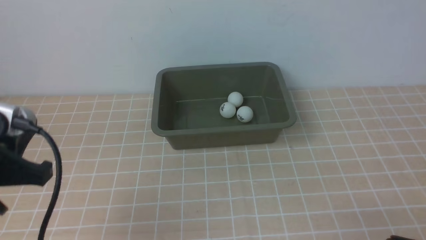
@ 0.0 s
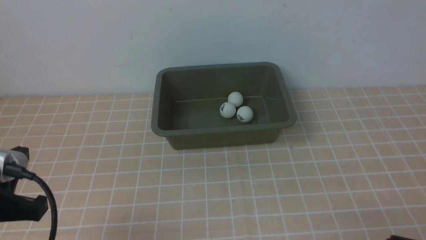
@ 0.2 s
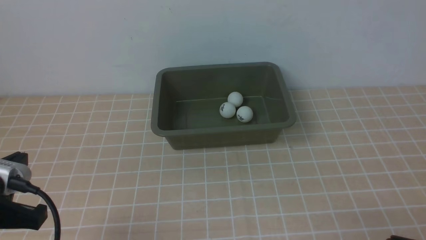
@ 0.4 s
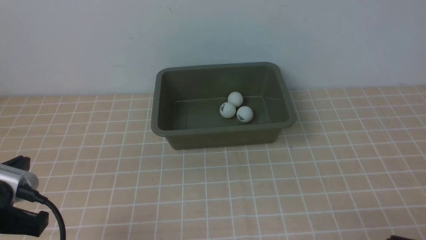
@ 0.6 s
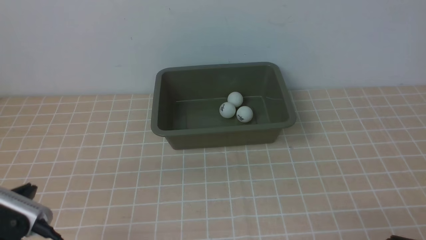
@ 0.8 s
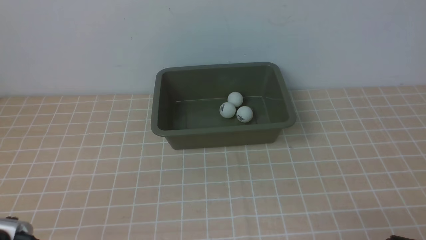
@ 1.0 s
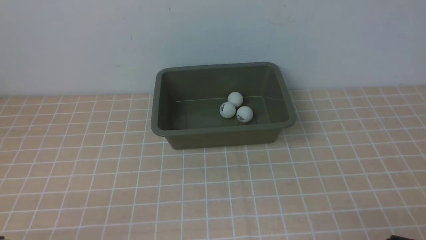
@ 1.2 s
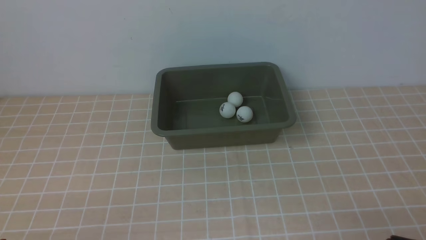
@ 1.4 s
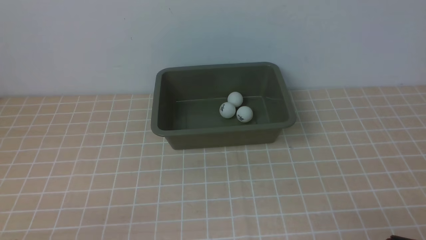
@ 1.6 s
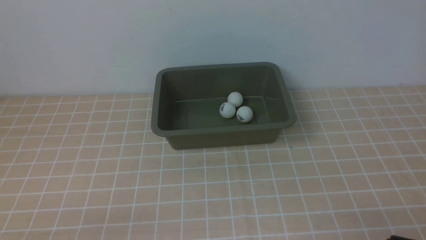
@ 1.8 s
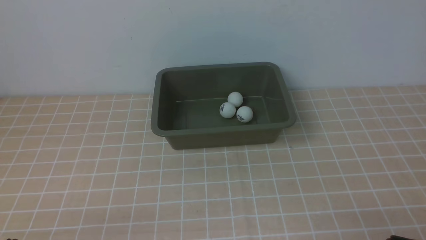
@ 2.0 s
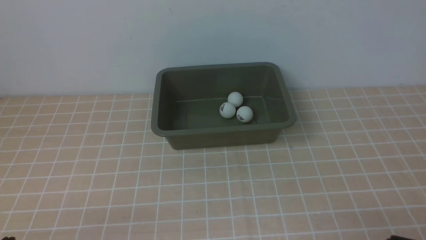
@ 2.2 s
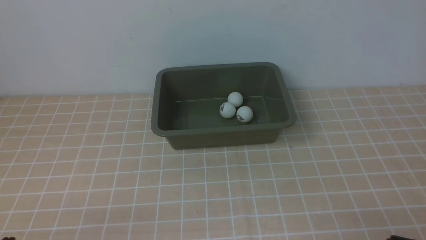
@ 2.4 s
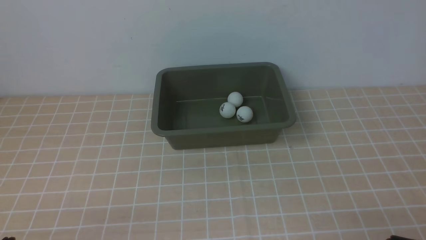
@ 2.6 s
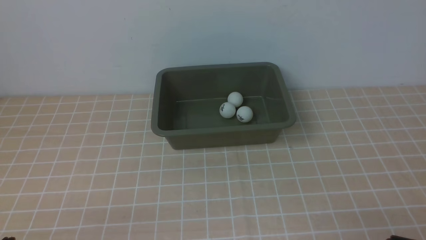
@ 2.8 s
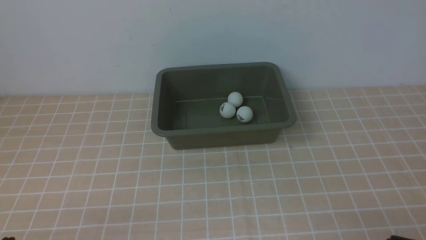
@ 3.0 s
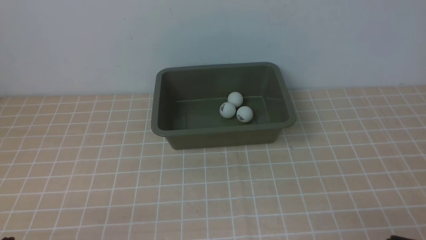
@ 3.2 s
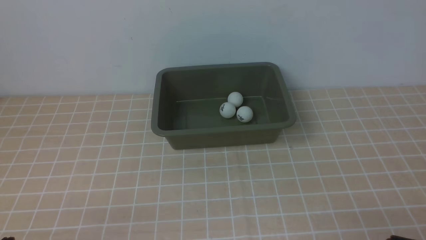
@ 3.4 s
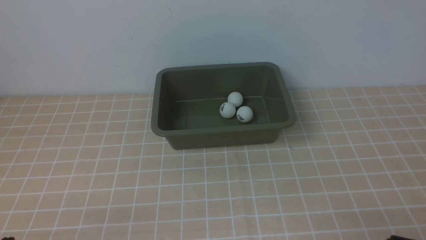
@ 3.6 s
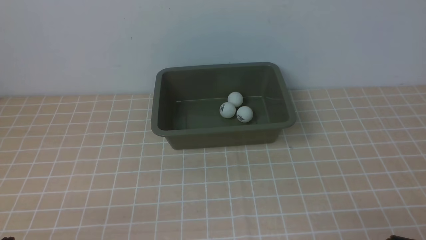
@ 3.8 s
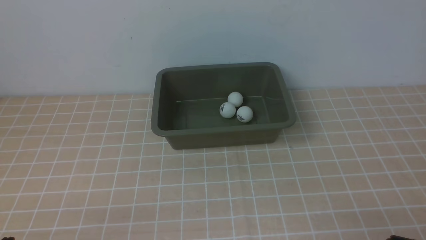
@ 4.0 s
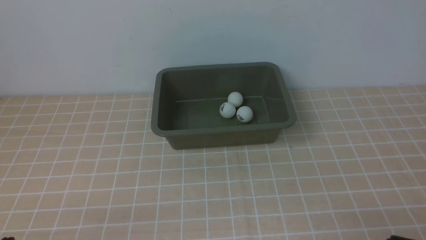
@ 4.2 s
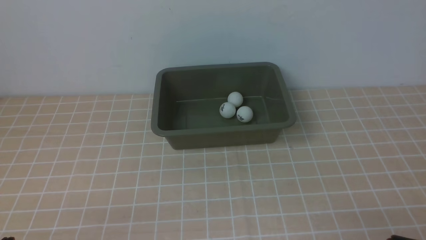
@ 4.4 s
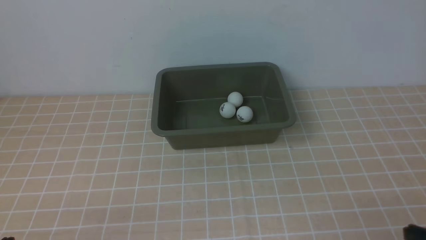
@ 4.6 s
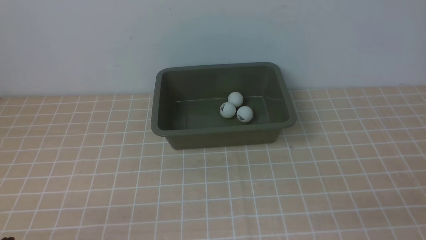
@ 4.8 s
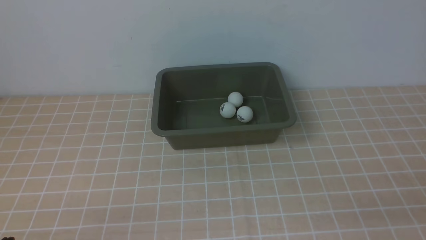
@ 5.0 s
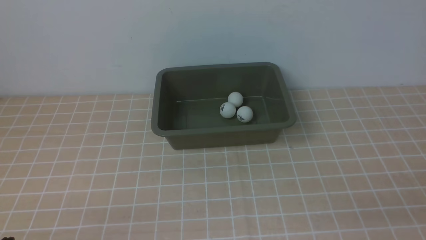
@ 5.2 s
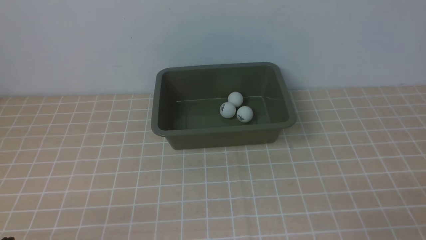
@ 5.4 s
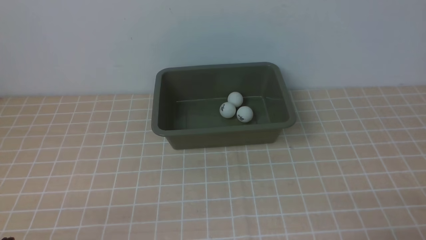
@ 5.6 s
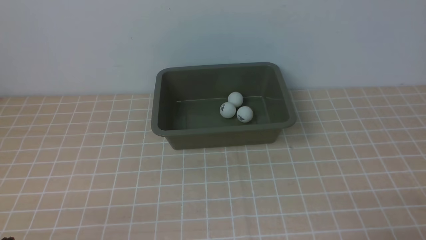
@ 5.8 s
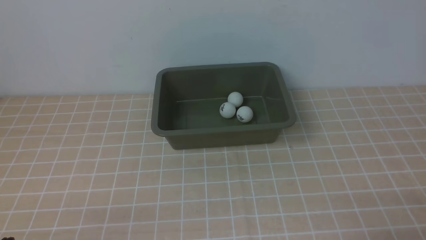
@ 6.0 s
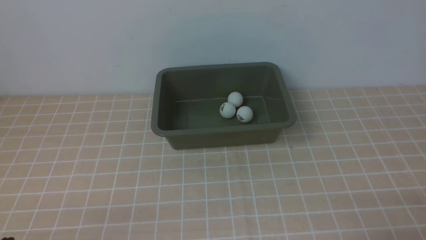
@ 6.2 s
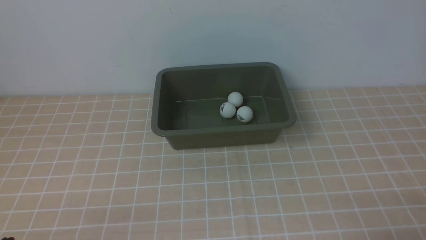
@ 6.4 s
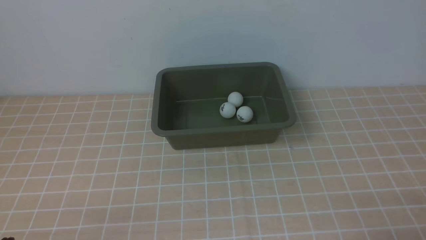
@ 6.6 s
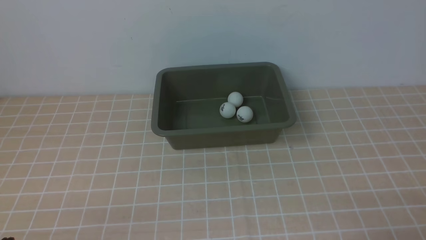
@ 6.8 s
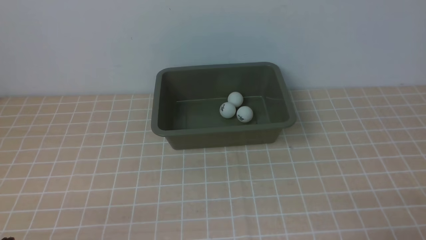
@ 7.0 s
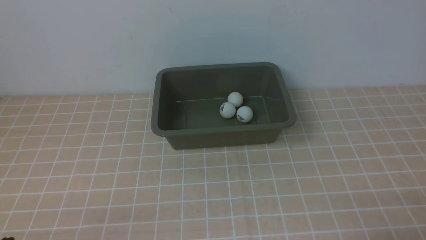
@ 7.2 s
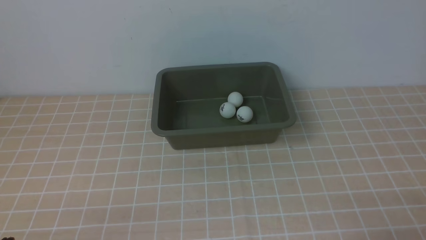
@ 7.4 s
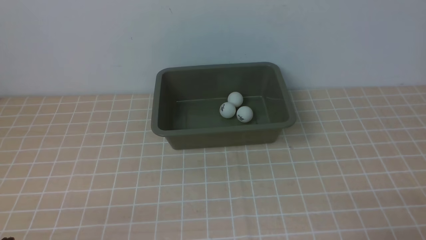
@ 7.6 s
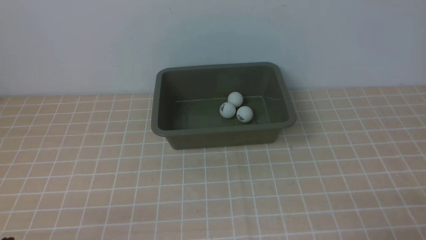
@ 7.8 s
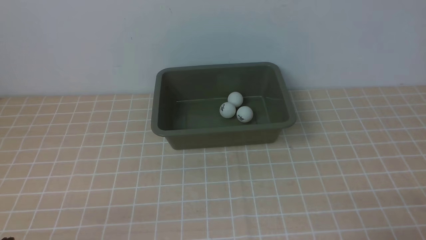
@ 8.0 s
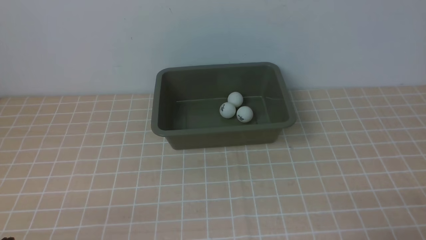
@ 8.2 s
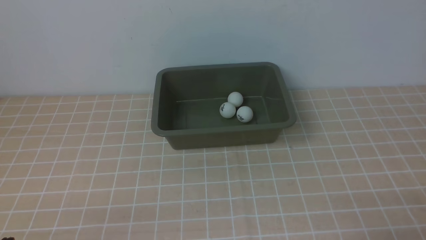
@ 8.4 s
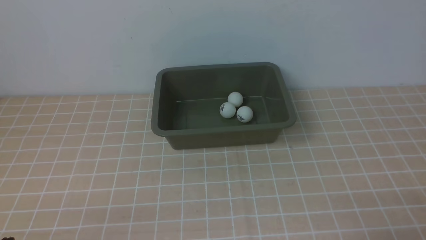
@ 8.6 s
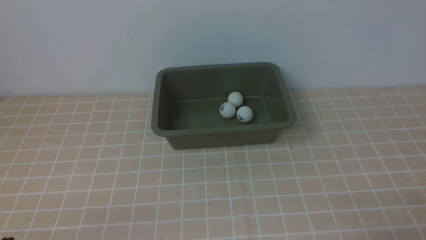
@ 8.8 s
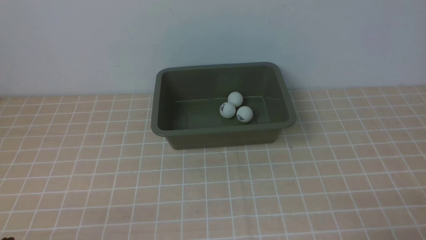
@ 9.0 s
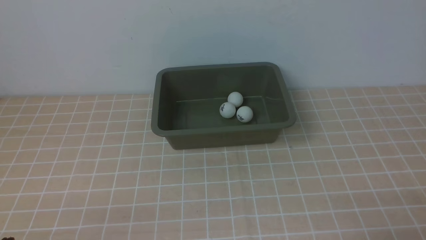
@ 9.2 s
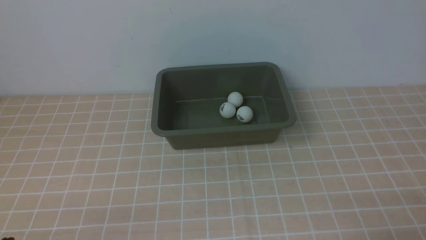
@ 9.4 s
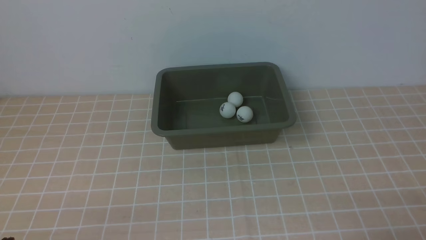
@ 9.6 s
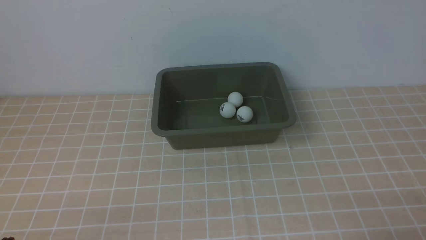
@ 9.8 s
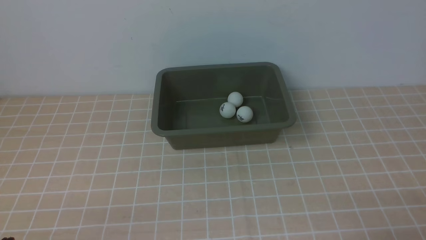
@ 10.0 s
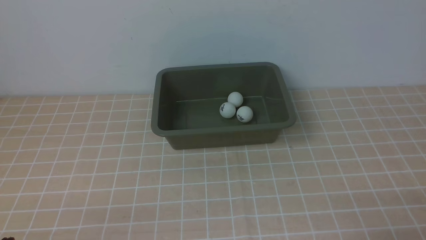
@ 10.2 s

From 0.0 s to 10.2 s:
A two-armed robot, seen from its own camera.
From 0.0 s to 1.4 s: The left gripper is displaced downward and backward by about 15 cm.
From 3.0 s to 4.4 s: Both grippers stay about where they are.
From 5.8 s to 10.2 s: Both grippers stay put.

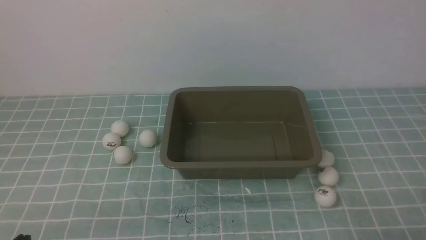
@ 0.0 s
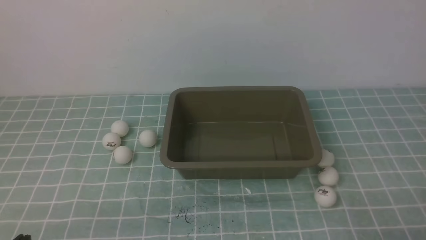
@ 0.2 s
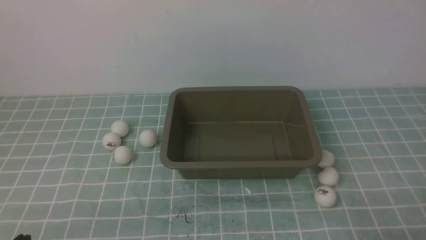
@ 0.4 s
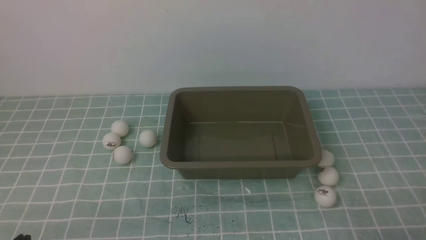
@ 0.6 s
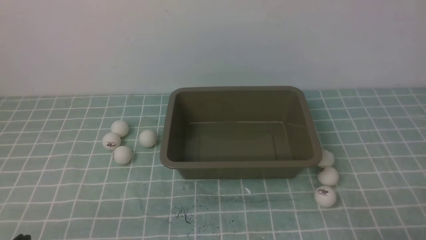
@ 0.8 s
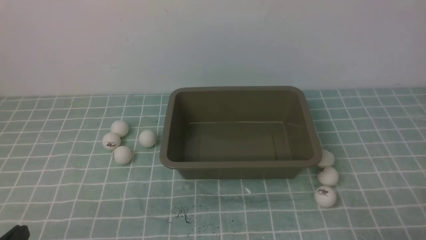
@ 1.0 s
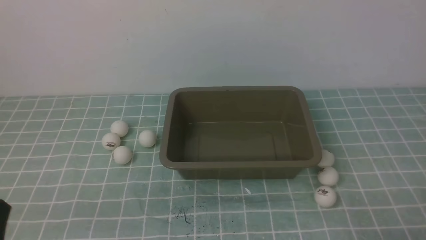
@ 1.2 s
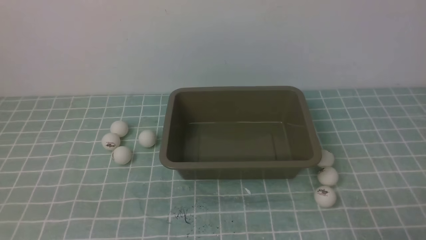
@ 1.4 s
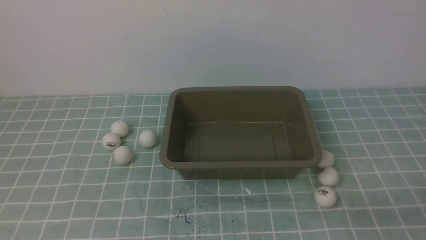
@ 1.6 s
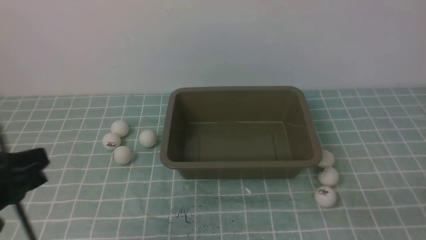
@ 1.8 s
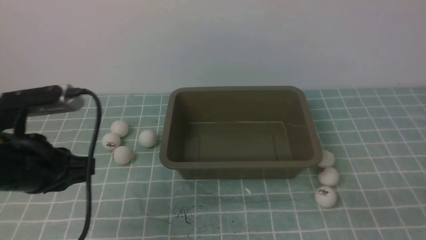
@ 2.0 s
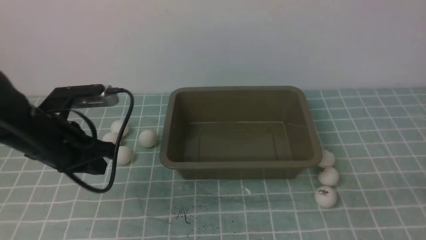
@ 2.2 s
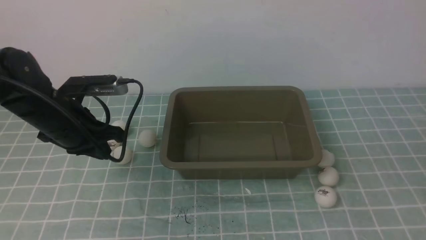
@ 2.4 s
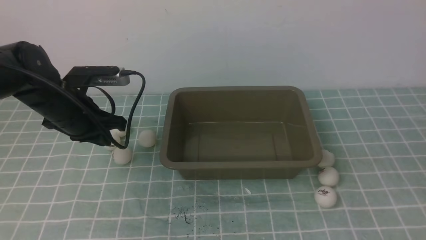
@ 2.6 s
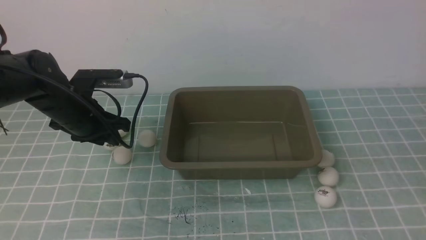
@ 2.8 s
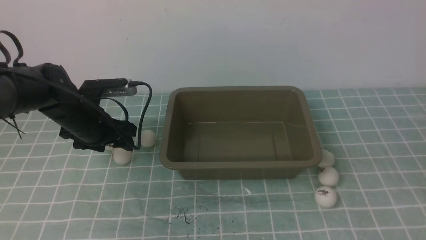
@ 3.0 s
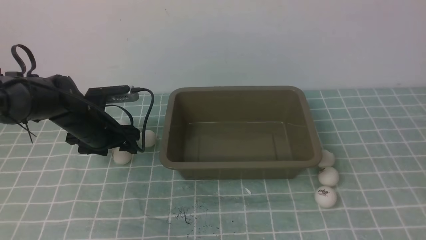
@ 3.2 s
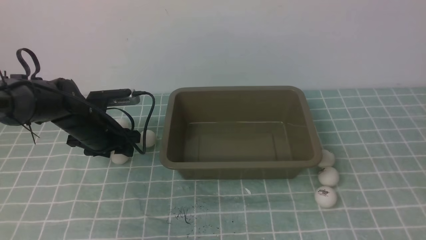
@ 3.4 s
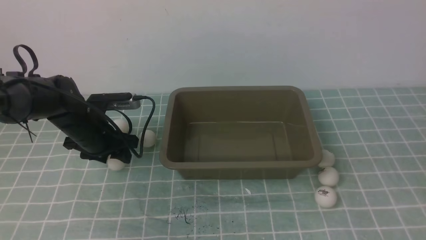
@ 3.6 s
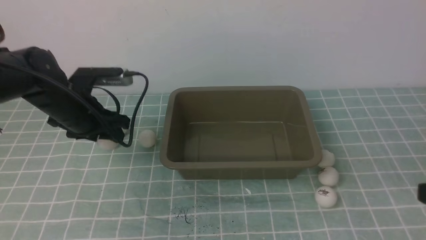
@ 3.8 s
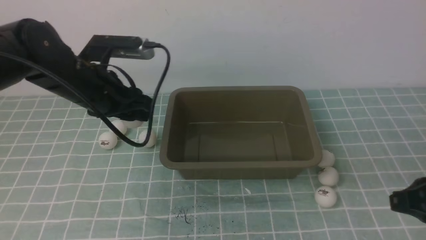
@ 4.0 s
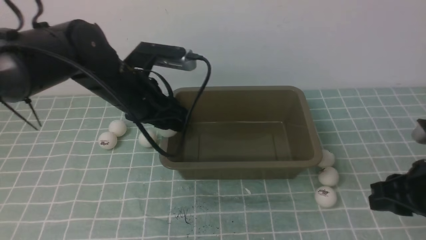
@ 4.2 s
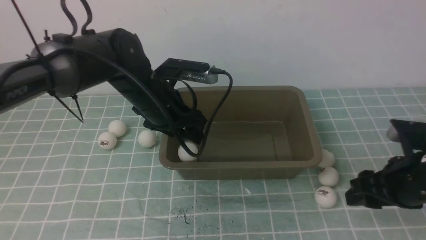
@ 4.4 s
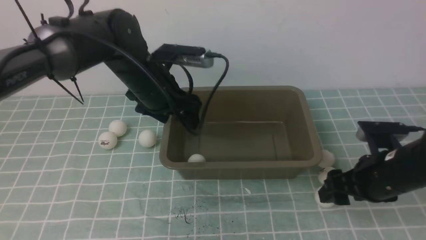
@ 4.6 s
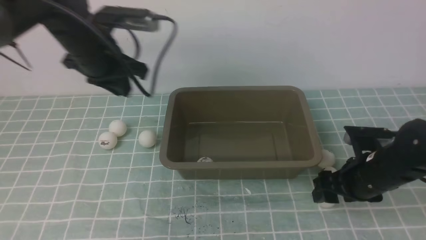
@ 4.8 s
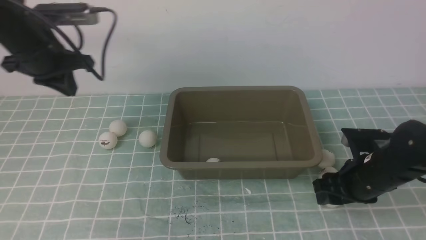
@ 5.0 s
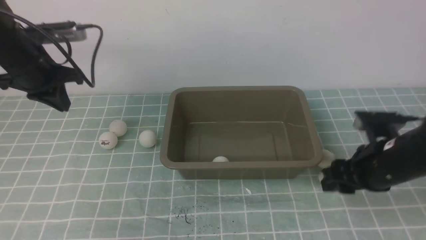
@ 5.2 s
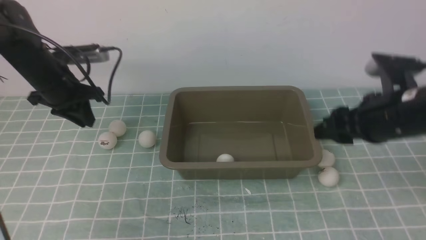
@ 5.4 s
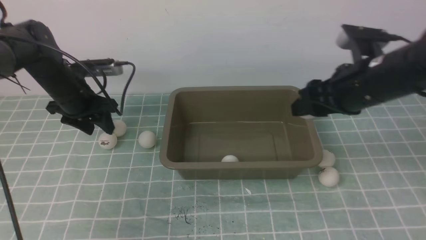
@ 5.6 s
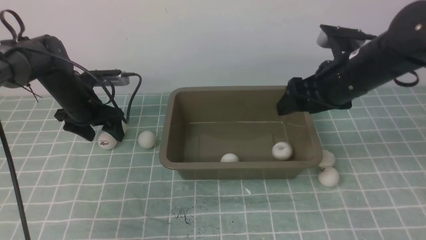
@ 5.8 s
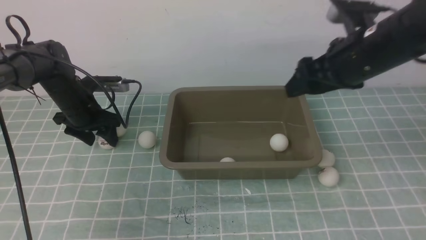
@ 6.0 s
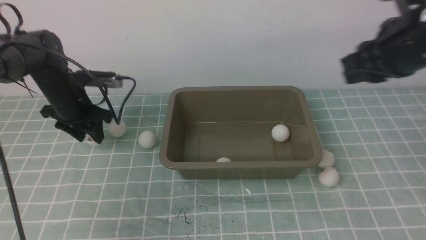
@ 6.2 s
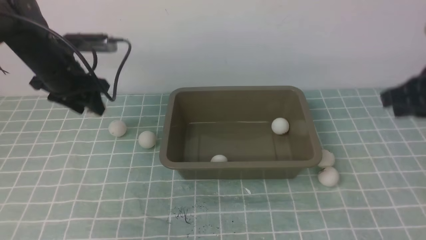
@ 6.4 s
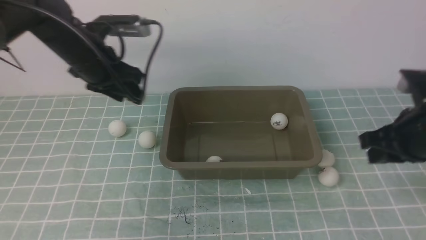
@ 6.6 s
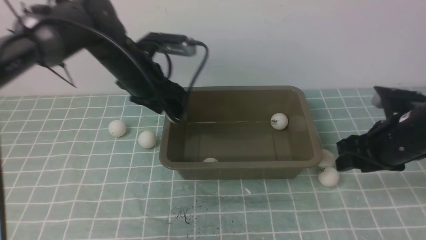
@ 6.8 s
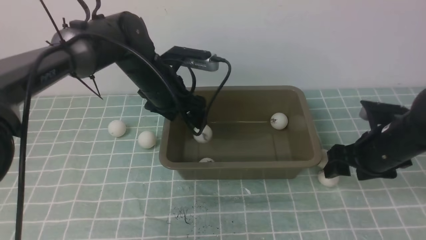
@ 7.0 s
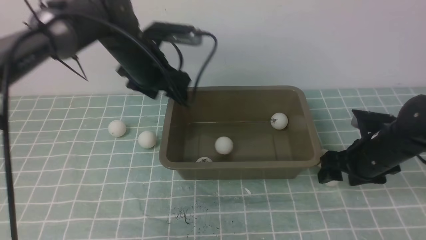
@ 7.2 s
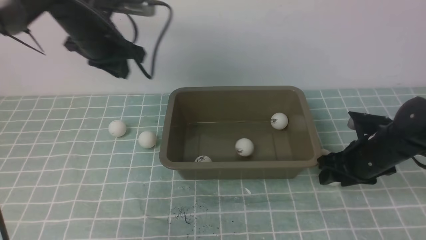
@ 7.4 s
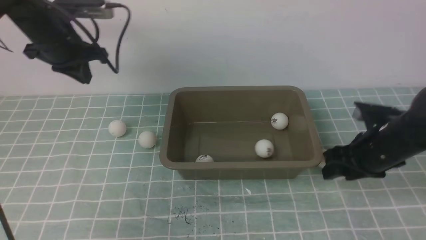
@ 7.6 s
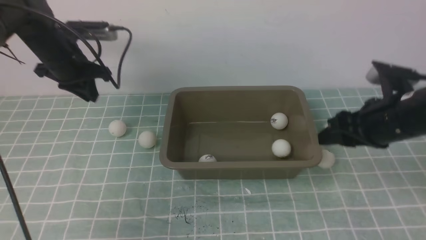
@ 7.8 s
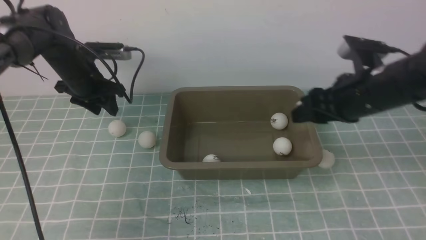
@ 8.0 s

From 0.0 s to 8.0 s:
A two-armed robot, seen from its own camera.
Step, from 0.0 s to 3.8 s: use the left arm to clamp the table tennis ball closest to it.
Step, from 4.0 s to 4.2 s: use the left arm to put the table tennis ball into the box.
Step, from 4.6 s to 5.2 s: use the right arm to clamp the table tennis ball closest to it.
Step, from 5.4 s to 5.6 s: use the right arm to put the table tennis ball into the box.
Step, from 6.4 s to 6.8 s: use the left arm to put the table tennis ball into the box.
Step, from 7.0 s to 7.4 s: use the right arm to clamp the table tennis ball closest to it.
From 1.6 s to 3.2 s: The right gripper heads upward, covering some 10 cm; the left gripper travels forward and downward by some 35 cm, and opens.
From 3.2 s to 4.8 s: The right gripper heads forward and downward, covering some 20 cm, and opens its fingers; the left gripper heads upward, covering roughly 15 cm, and closes.
From 4.8 s to 6.4 s: The right gripper shifts some 15 cm upward, and closes its fingers; the left gripper opens, then closes again.
From 6.4 s to 8.0 s: The right gripper shifts some 5 cm to the left, goes downward and returns, about 15 cm each way, and opens its fingers. Meanwhile the left gripper moves forward, roughly 5 cm, goes to the right and returns, roughly 10 cm each way, and closes, then opens again.
